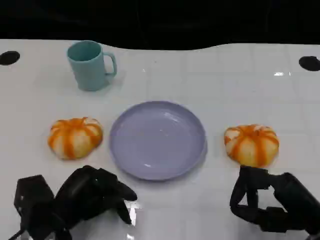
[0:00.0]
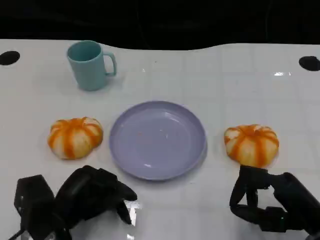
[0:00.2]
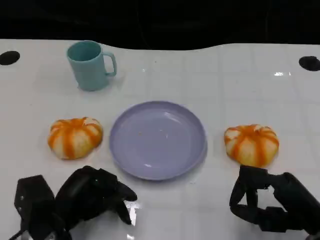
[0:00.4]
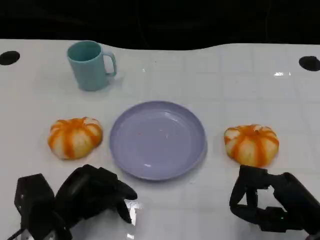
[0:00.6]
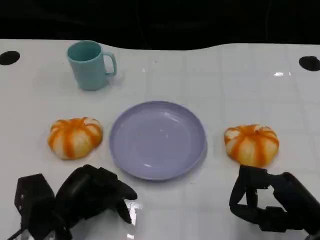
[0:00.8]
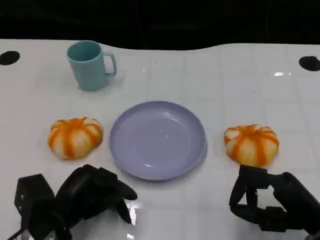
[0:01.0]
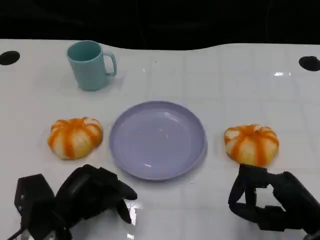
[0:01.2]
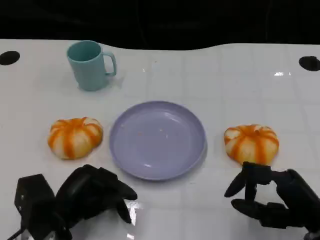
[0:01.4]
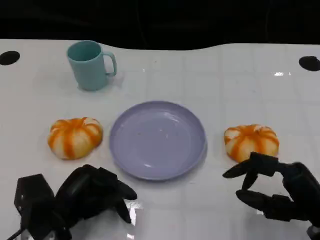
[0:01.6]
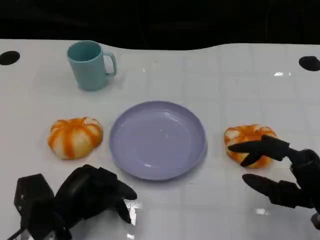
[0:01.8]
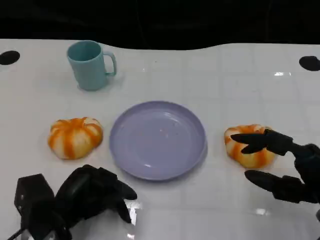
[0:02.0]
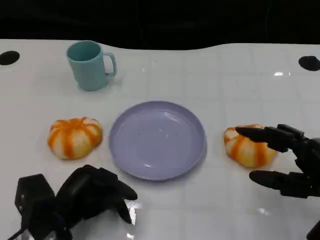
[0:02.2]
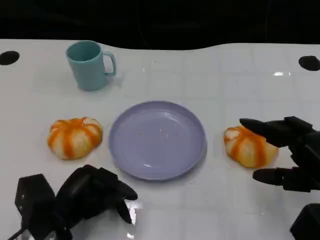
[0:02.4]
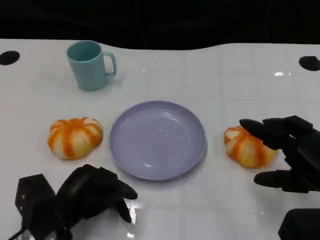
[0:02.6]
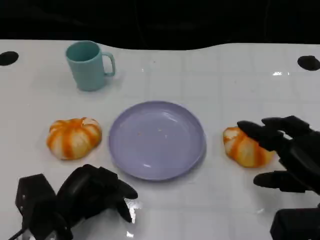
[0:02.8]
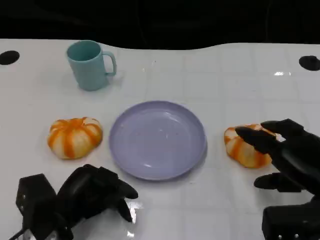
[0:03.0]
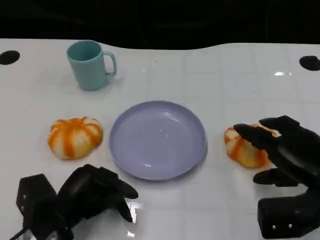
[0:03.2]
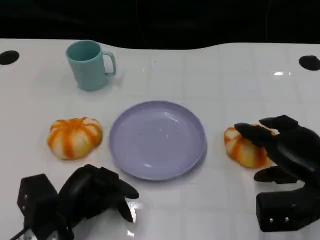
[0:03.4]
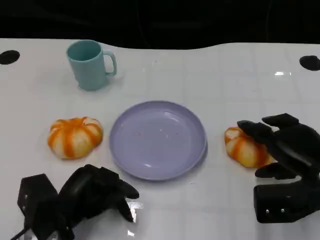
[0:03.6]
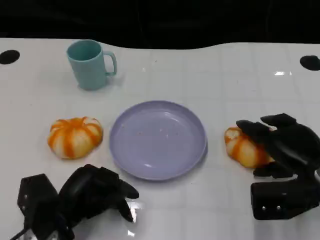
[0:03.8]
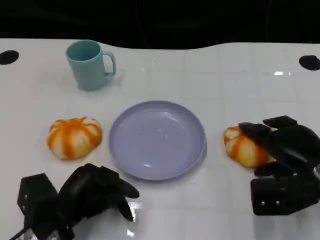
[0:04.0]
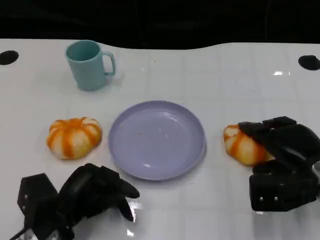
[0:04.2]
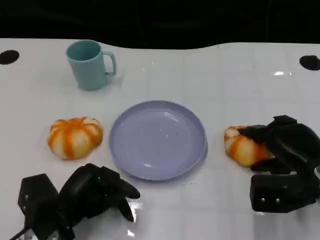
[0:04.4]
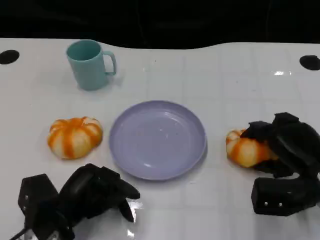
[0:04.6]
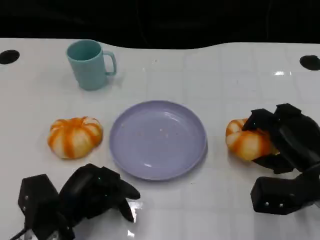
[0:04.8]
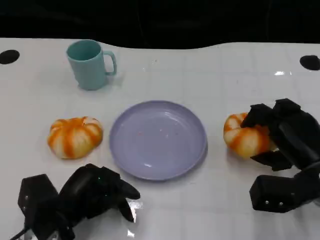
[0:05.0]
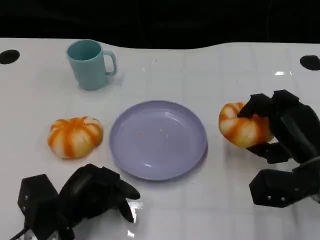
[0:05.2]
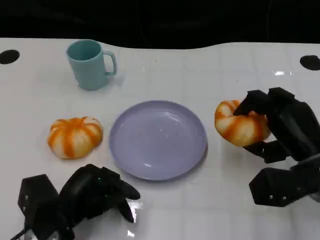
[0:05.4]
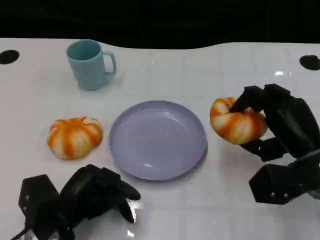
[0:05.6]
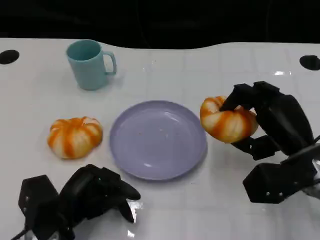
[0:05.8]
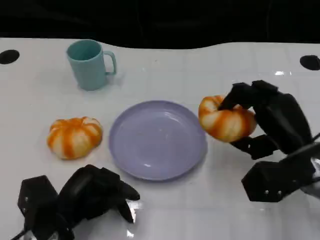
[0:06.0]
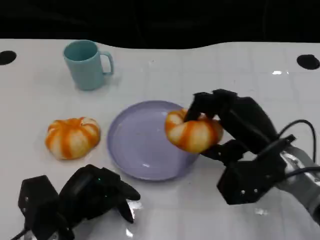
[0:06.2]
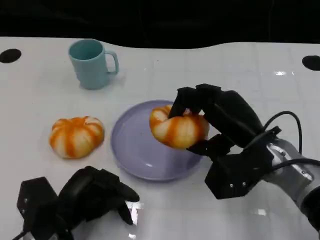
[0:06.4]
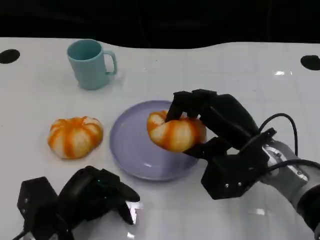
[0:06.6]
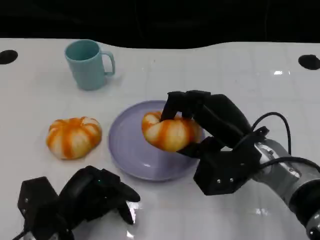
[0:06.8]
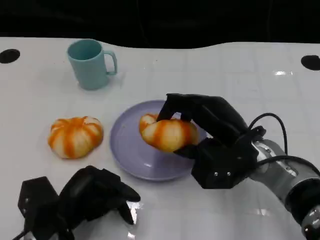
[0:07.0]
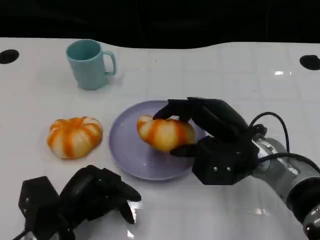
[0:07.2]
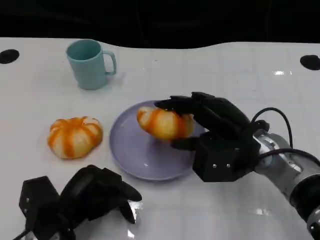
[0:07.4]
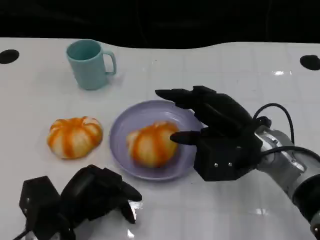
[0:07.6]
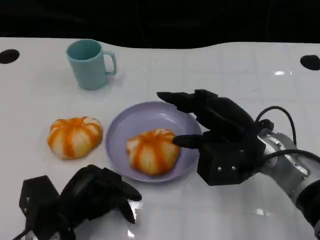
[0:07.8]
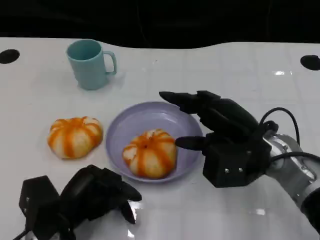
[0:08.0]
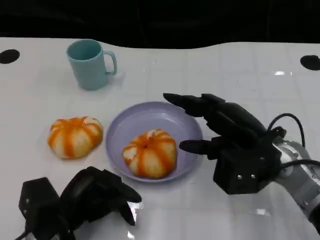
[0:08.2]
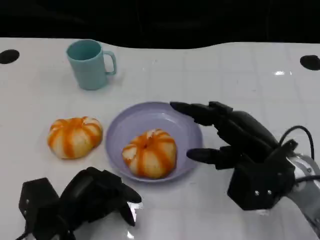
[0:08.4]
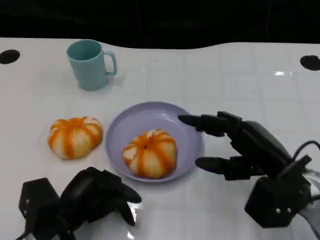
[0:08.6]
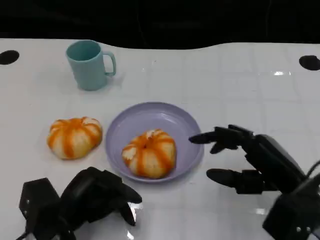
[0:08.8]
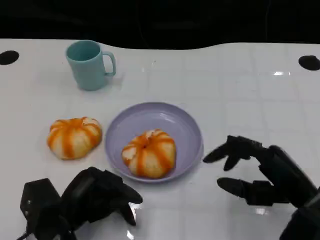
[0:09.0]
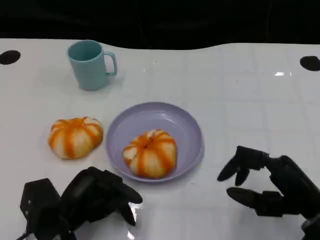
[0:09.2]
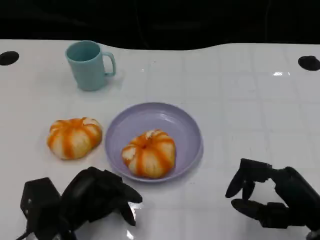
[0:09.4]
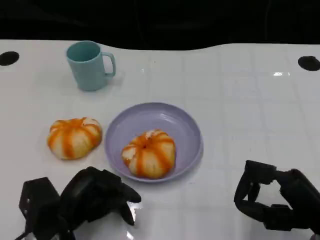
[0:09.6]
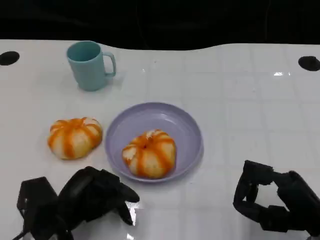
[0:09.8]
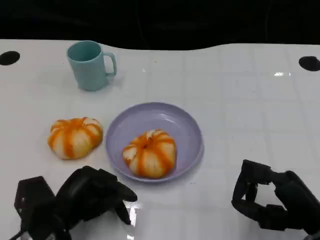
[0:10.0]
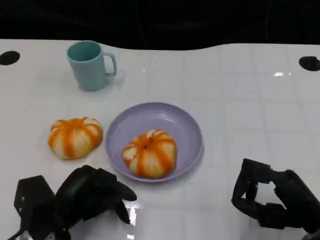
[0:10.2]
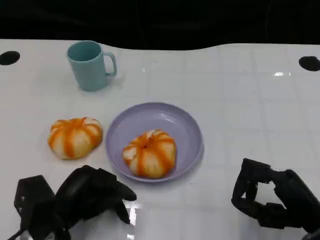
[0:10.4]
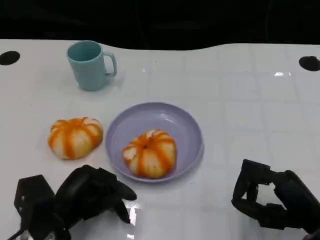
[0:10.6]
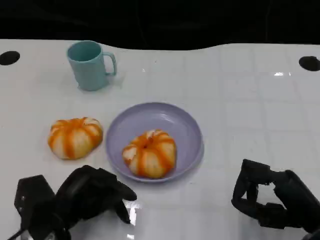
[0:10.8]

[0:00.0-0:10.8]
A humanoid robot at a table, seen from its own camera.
Task of the whole recording: Grasp the bread from the table and place it into the plate.
0:00.0 to 0:01.6: The hands stay close to where they were, moving slightly.
0:03.0 to 0:04.6: The right hand shifts by some 5 cm.
0:04.6 to 0:06.2: The right hand is displaced to the left and upward by about 10 cm.
0:06.2 to 0:07.8: The hands move only a little.
0:07.8 to 0:09.2: The right hand moves backward and to the right, approximately 15 cm.
0:09.2 to 0:10.8: There are only small adjustments of the hands.

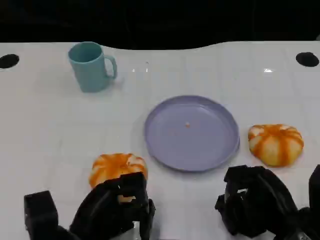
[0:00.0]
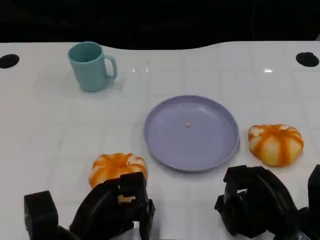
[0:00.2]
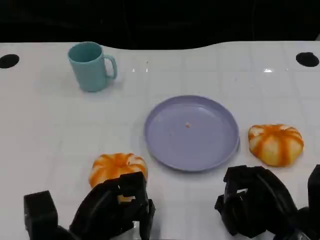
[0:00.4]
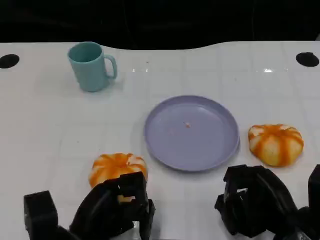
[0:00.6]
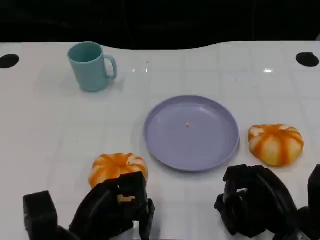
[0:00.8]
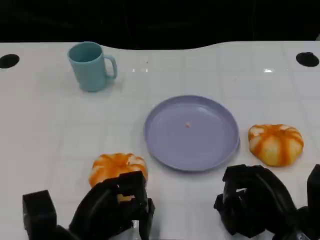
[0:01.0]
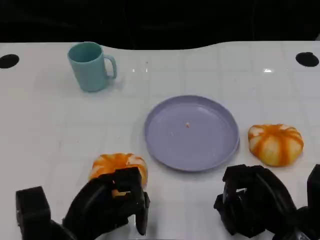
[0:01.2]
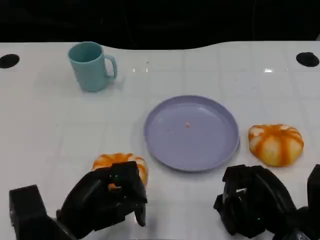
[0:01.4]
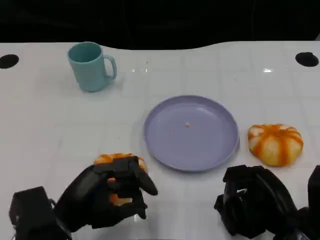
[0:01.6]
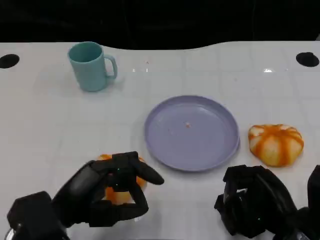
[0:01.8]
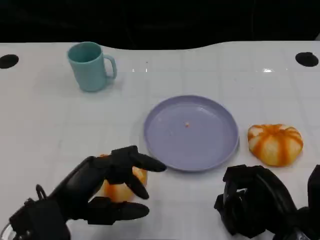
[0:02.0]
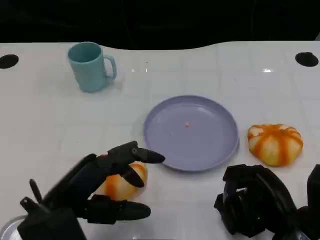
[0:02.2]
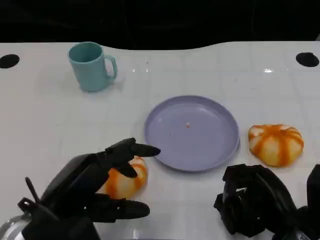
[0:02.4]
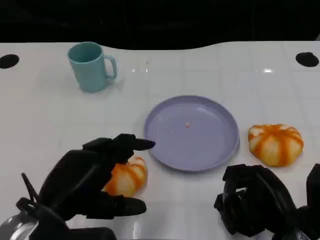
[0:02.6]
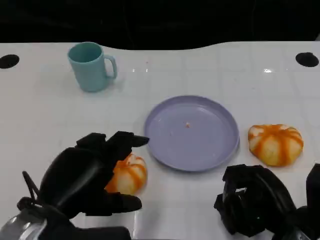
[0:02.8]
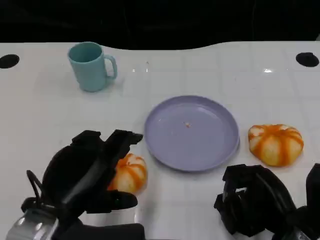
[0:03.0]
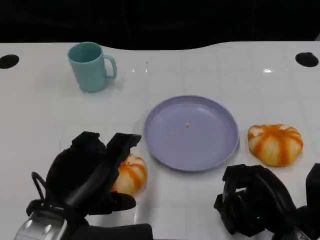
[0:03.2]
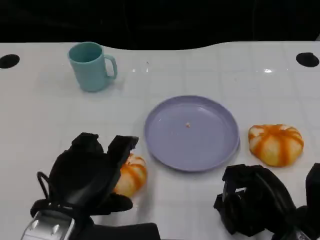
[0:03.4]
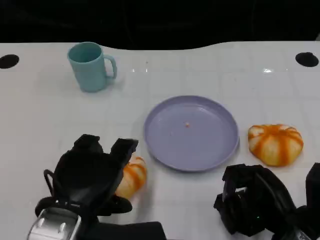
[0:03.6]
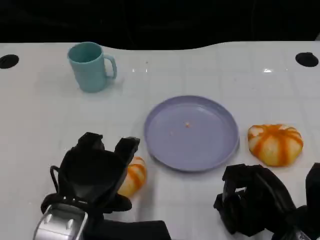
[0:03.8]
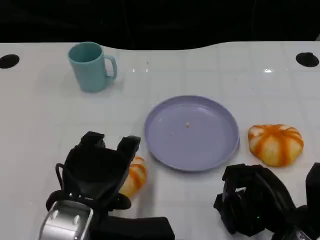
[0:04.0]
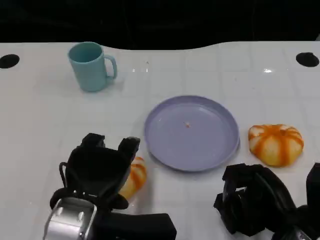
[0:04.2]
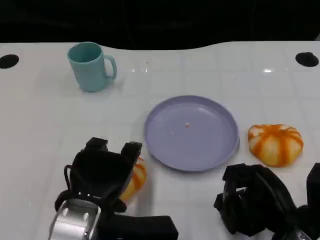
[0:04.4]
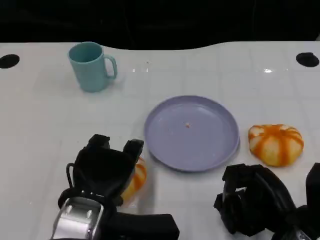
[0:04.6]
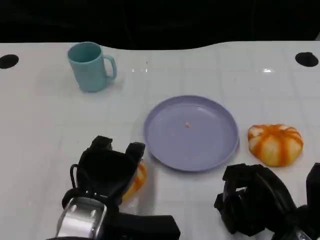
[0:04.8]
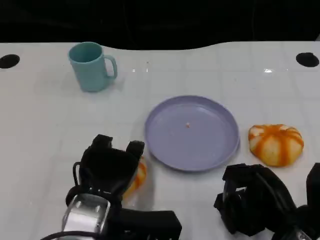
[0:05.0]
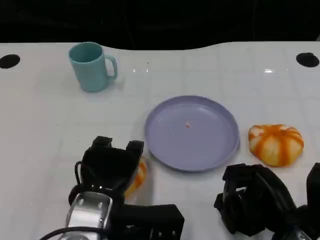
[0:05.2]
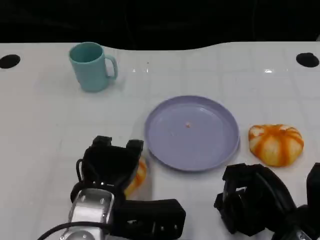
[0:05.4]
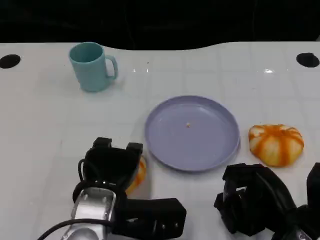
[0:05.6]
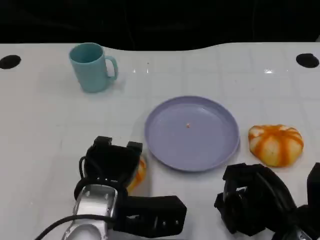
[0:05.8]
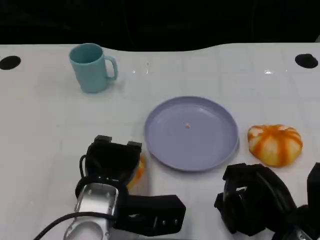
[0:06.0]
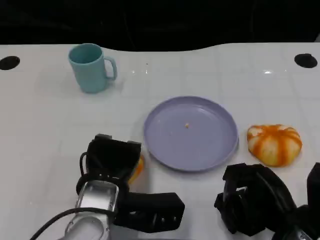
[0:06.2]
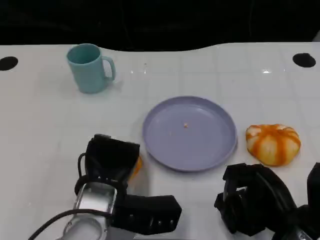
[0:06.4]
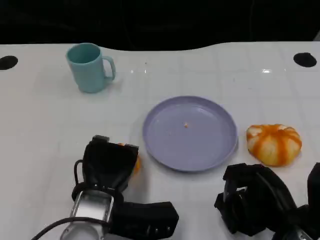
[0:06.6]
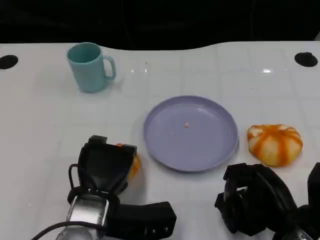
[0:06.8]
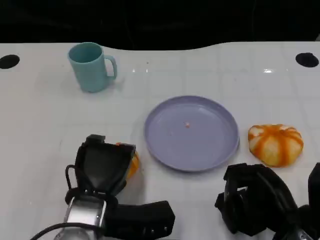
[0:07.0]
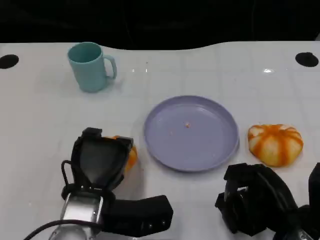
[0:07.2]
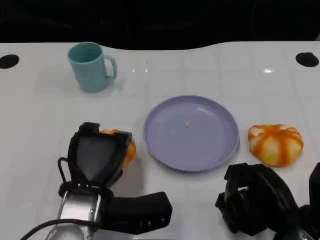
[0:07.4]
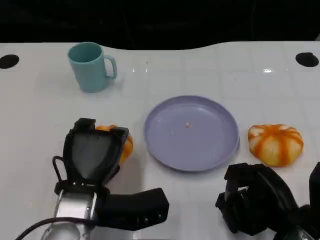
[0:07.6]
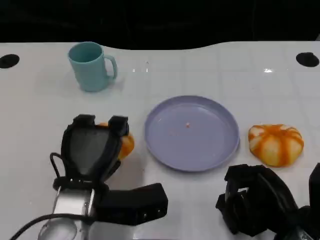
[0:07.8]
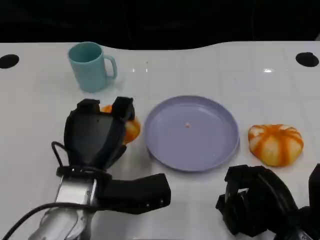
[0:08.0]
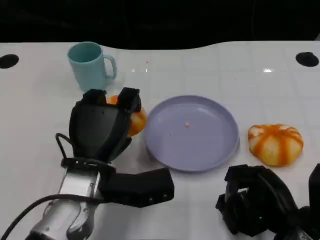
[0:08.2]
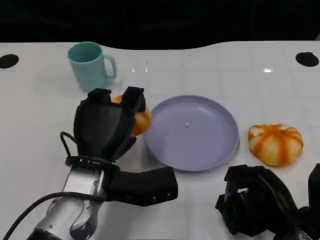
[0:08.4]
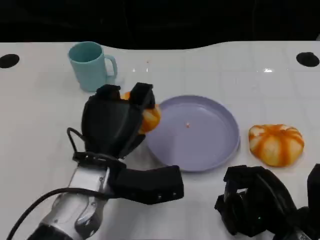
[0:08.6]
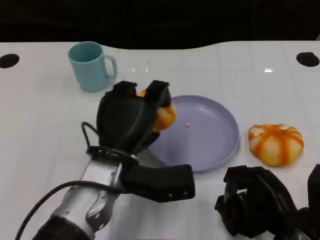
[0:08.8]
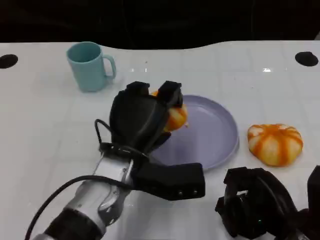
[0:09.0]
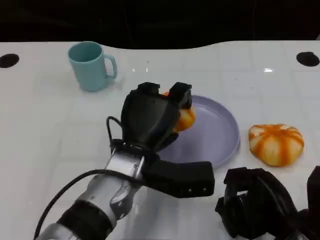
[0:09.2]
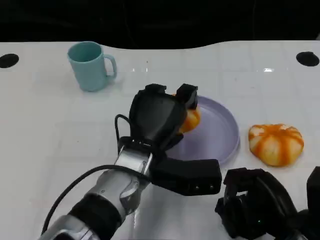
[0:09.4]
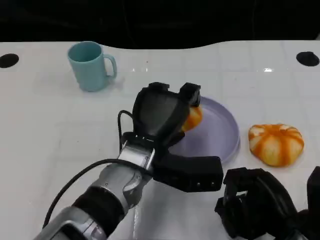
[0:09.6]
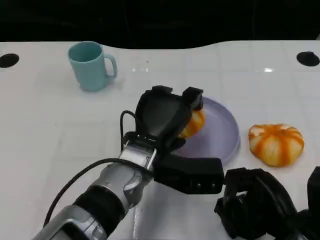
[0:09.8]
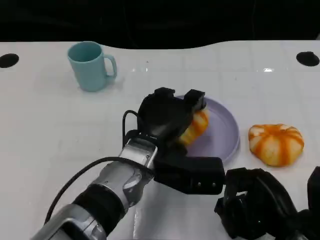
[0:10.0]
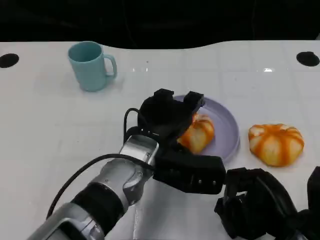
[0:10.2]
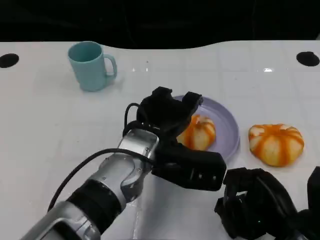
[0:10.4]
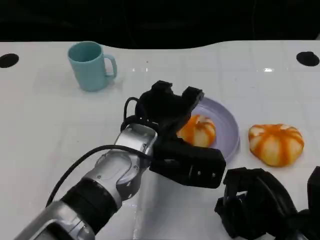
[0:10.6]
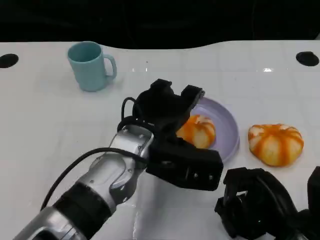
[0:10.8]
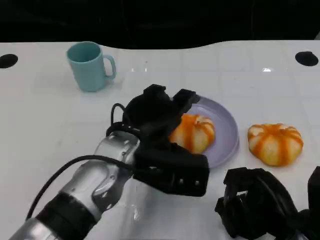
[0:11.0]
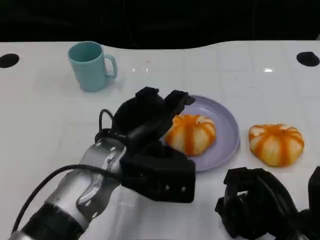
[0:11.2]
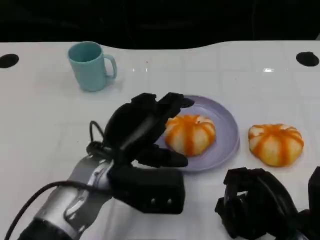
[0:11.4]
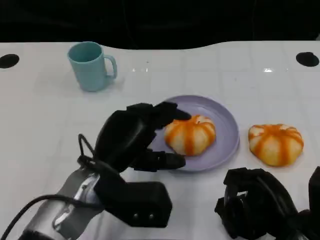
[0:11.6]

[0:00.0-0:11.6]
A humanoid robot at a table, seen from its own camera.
Task of the whole recording: Grasp the bread from the table and place it into the plate.
0:00.0 to 0:01.4: There are only small adjustments of the hands.
0:01.4 to 0:02.8: The left hand moves upward, roughly 5 cm.
0:02.8 to 0:04.4: The left hand changes place by some 5 cm.
0:04.4 to 0:05.8: The hands stay close to where they were, moving slightly.
0:07.2 to 0:08.8: The left hand moves roughly 5 cm.
0:10.2 to 0:11.6: The left hand shifts roughly 10 cm to the left.
